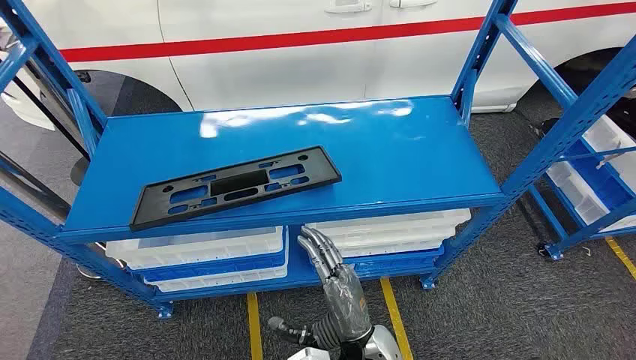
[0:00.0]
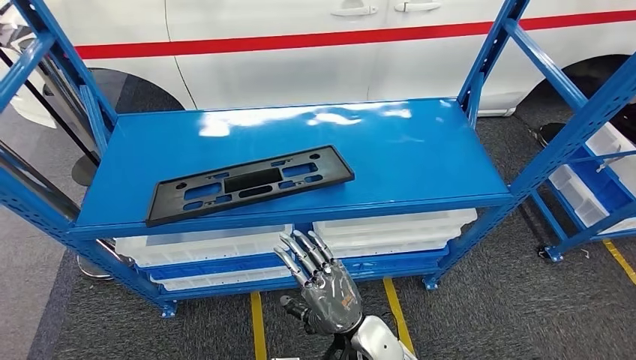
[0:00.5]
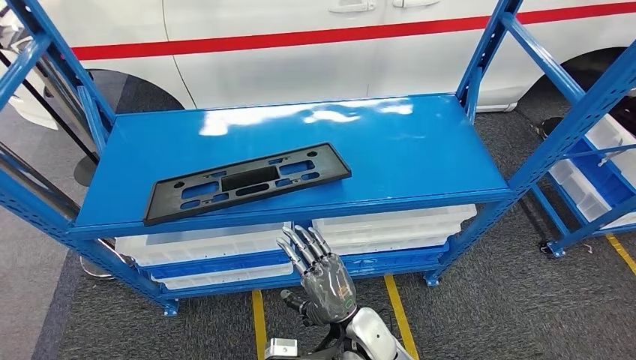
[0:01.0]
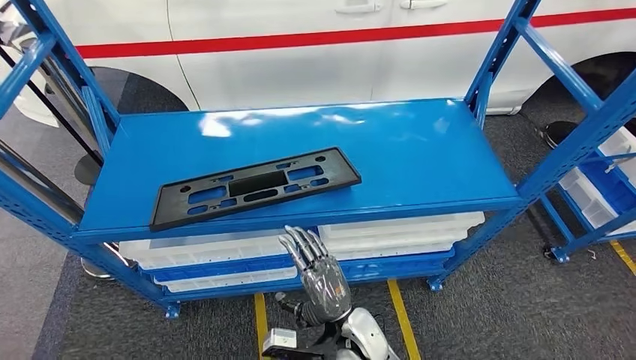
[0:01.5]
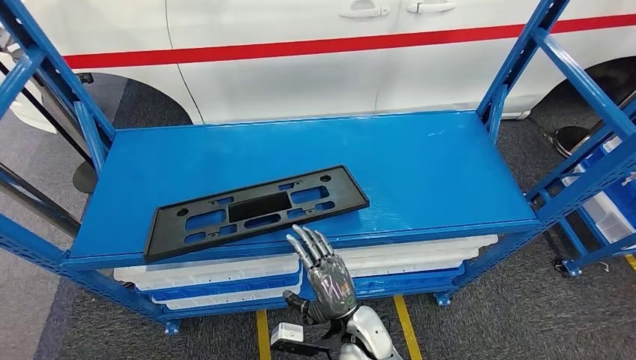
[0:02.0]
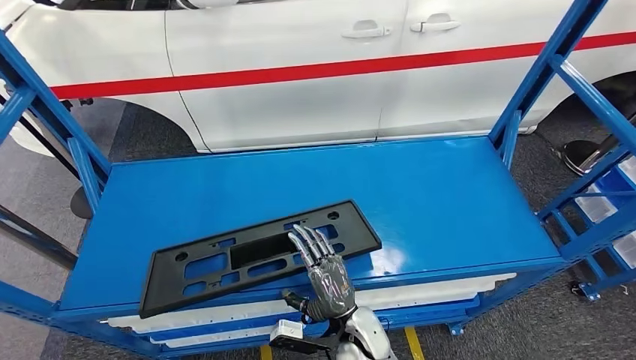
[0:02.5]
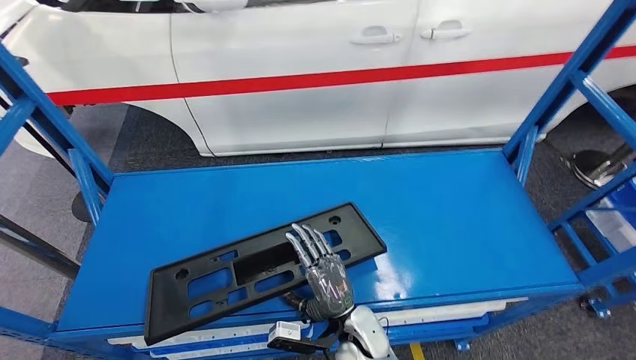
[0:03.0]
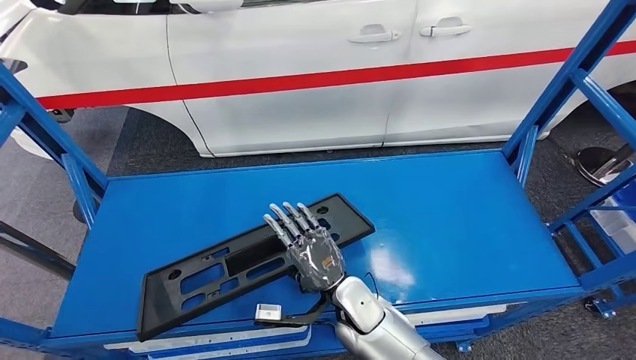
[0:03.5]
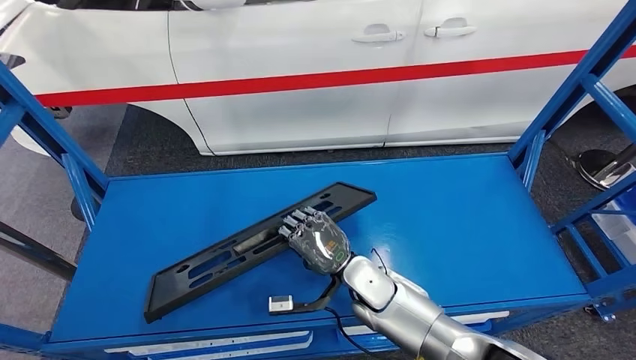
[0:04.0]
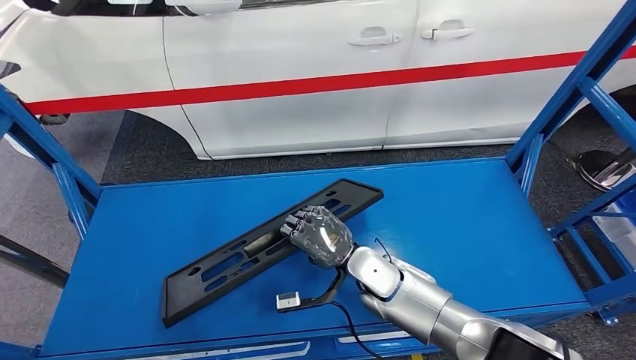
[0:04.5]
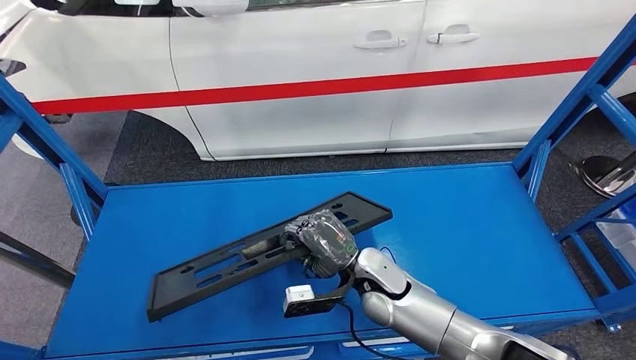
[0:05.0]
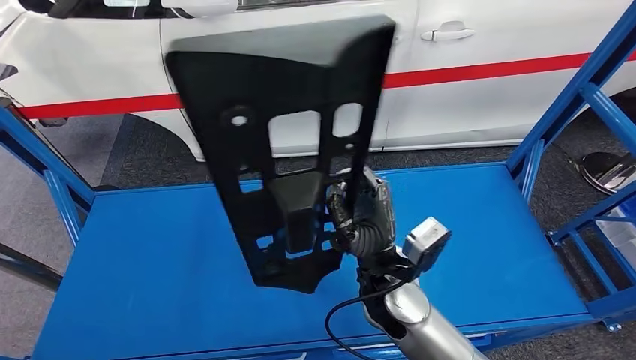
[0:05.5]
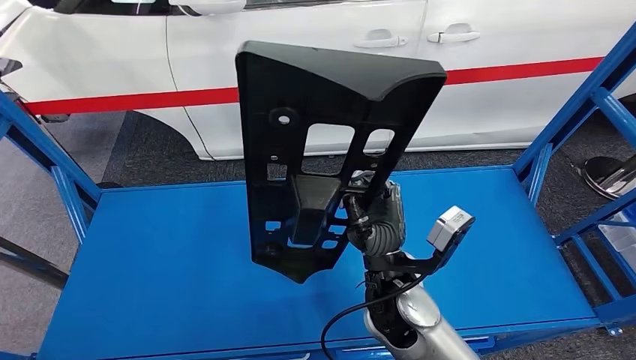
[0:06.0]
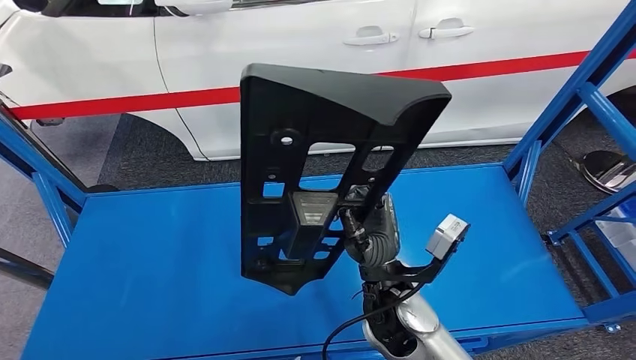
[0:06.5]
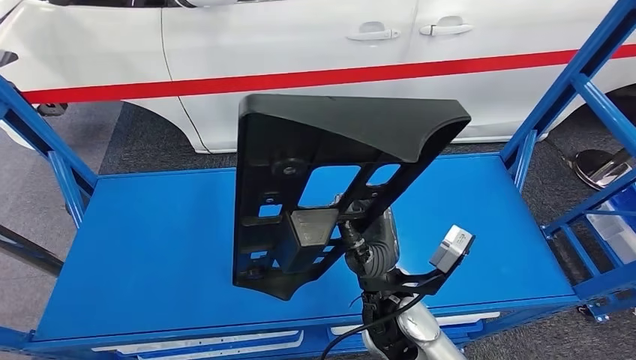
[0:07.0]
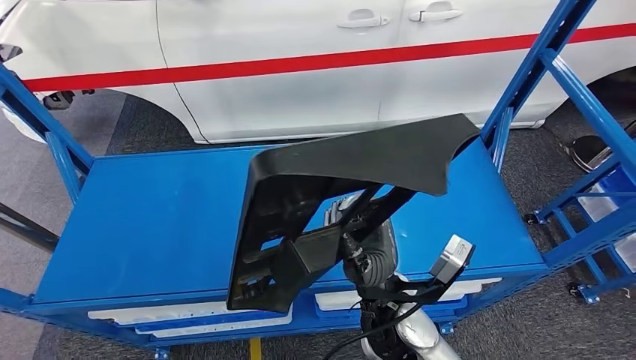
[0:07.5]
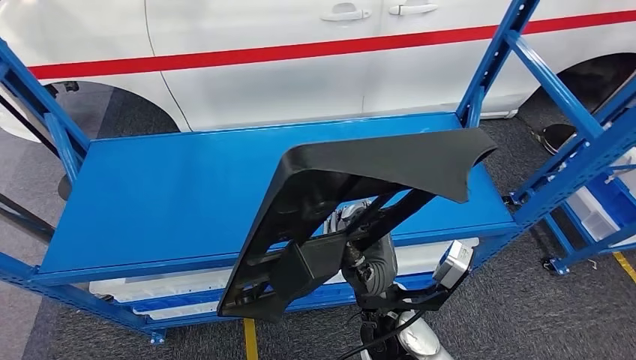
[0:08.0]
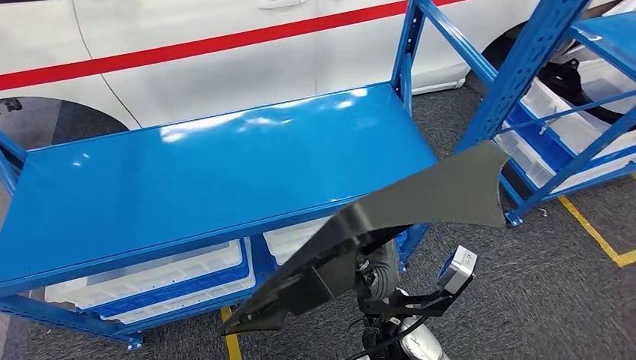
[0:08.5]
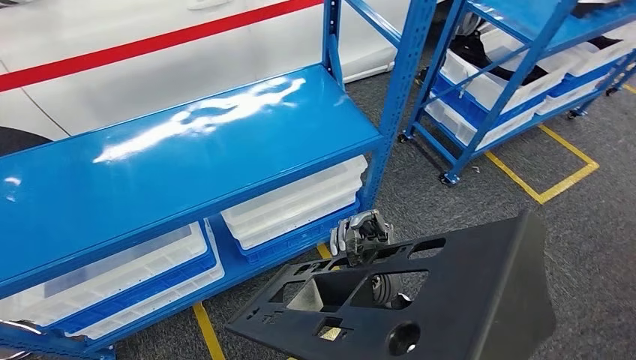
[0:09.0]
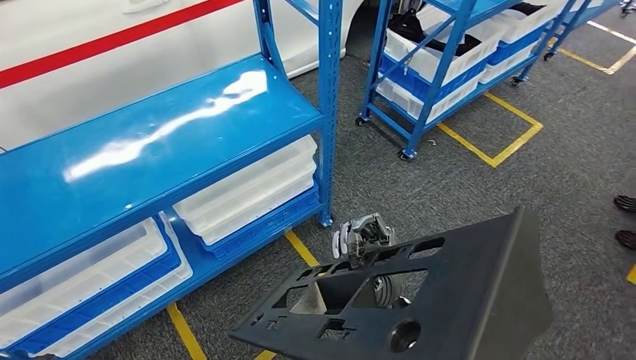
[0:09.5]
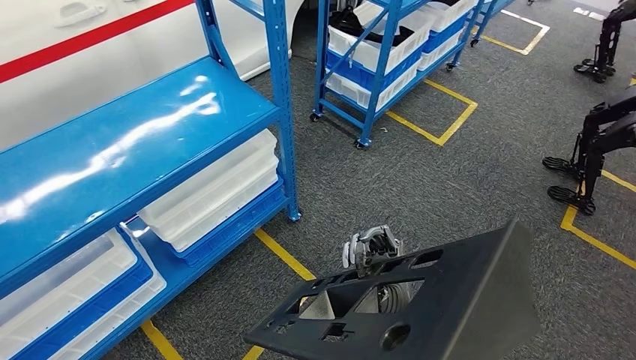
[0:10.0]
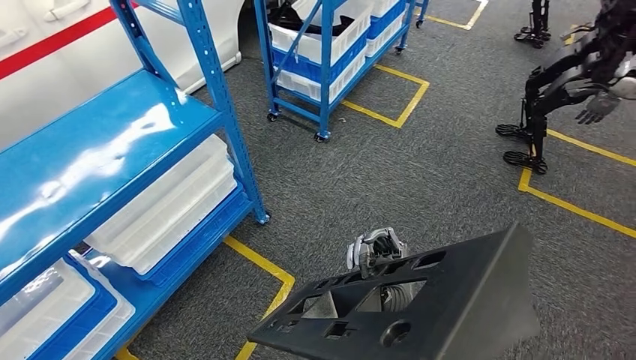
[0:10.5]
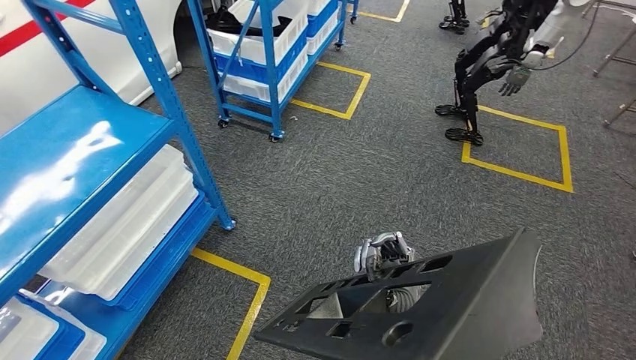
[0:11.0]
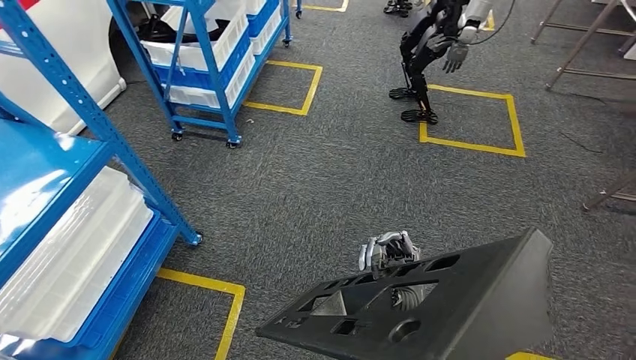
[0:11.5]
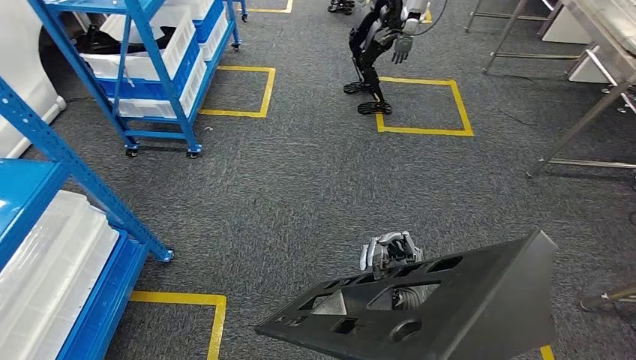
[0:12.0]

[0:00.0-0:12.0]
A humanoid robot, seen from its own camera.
Step, 0:00.0 to 0:08.0: Pick up the large material from the shelf.

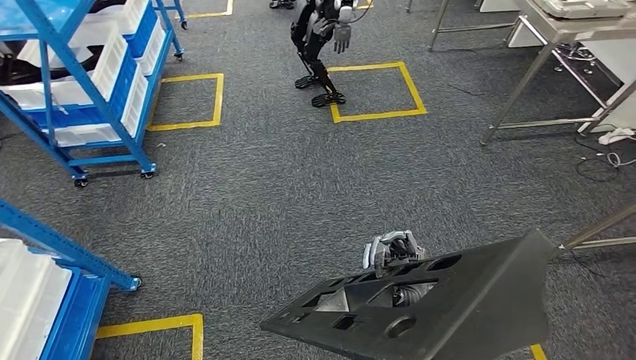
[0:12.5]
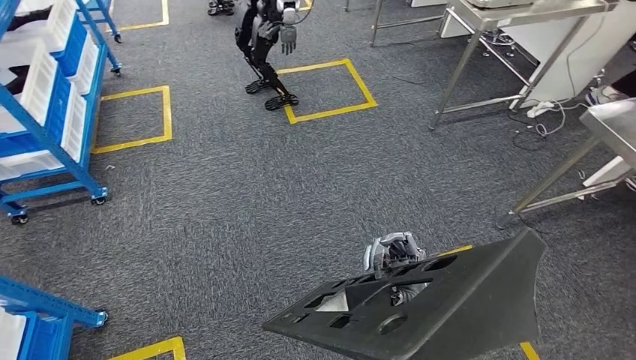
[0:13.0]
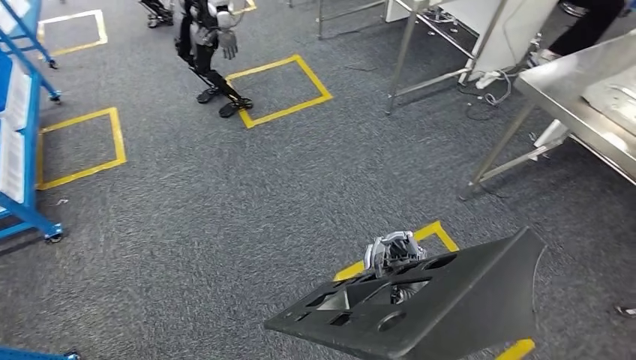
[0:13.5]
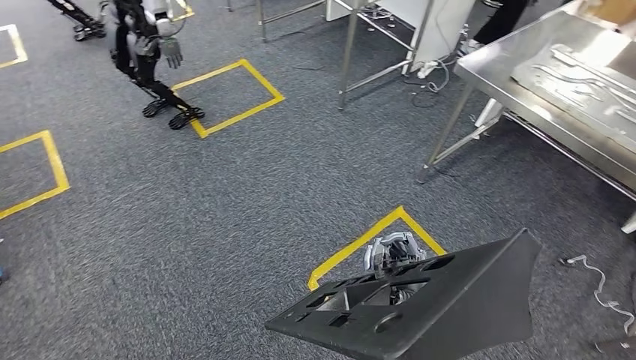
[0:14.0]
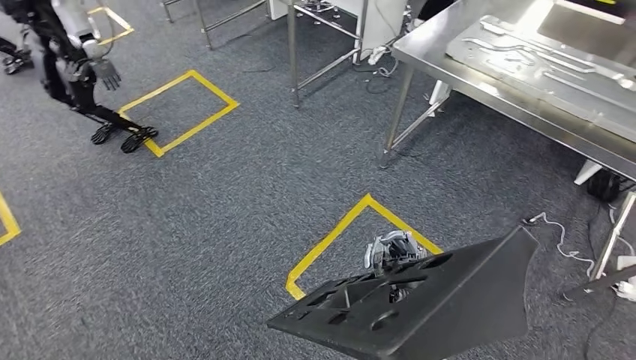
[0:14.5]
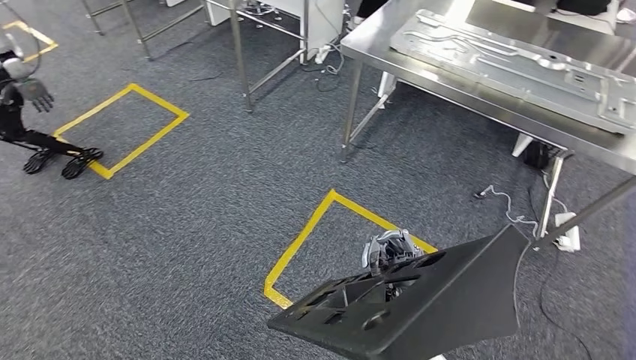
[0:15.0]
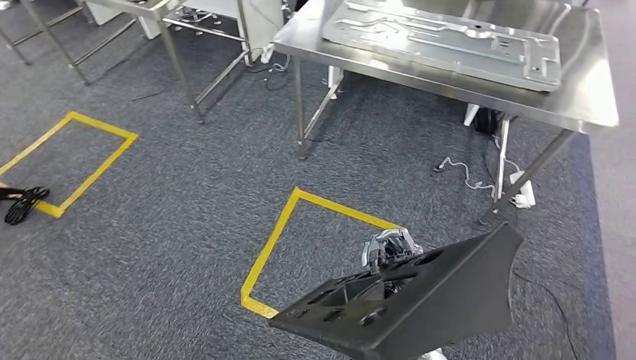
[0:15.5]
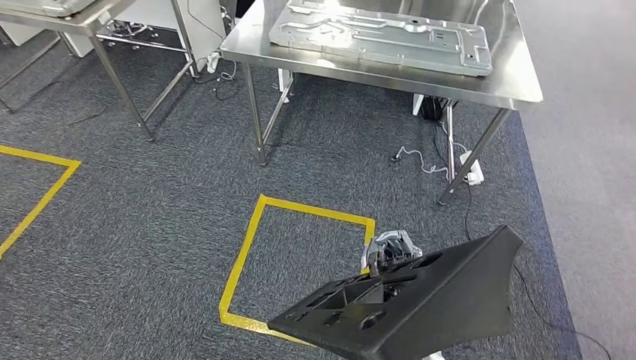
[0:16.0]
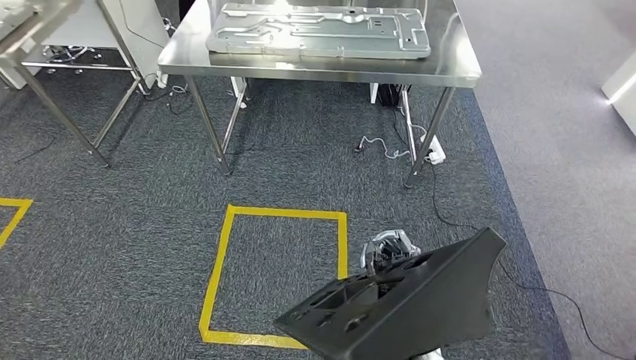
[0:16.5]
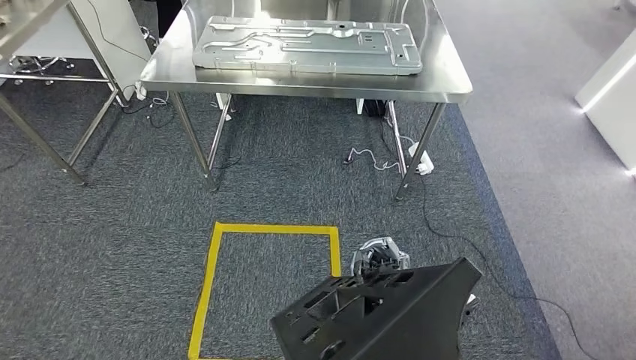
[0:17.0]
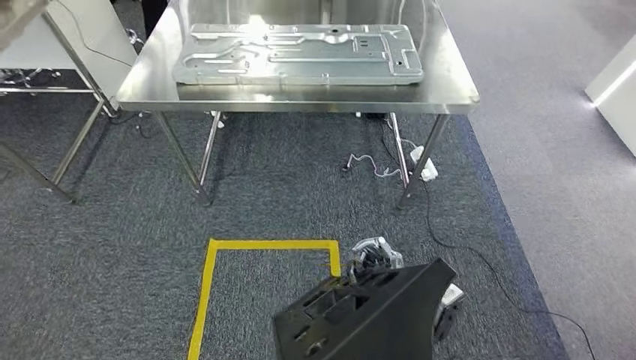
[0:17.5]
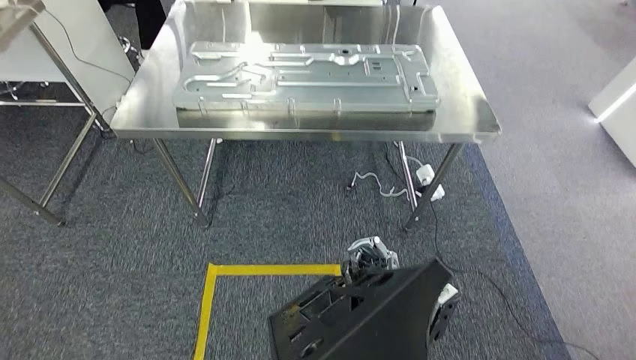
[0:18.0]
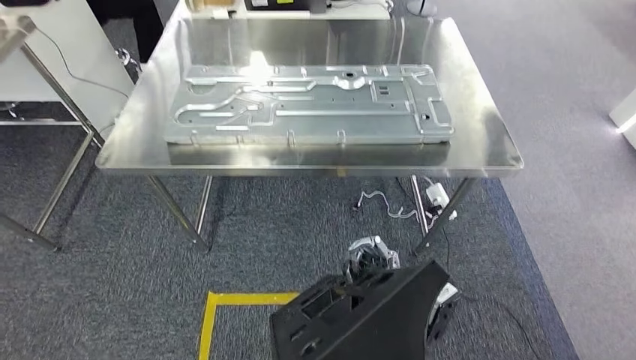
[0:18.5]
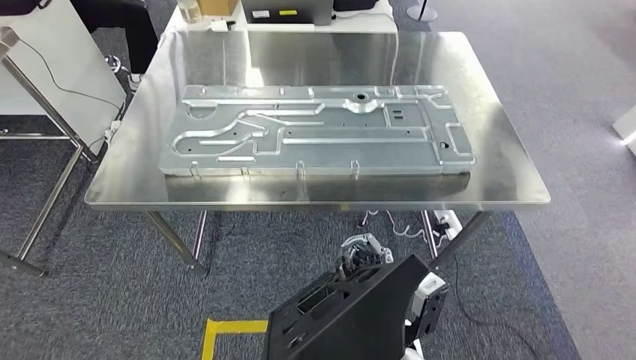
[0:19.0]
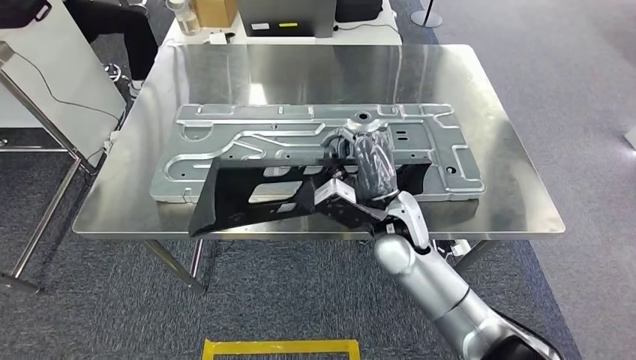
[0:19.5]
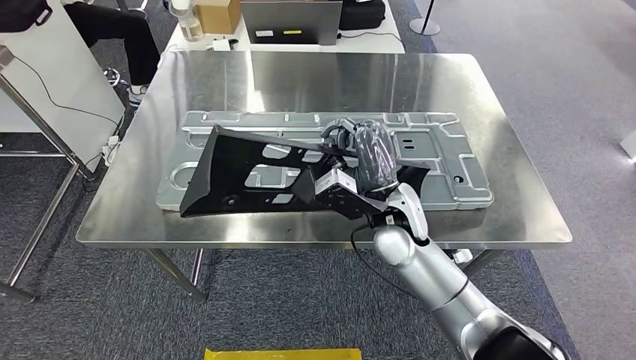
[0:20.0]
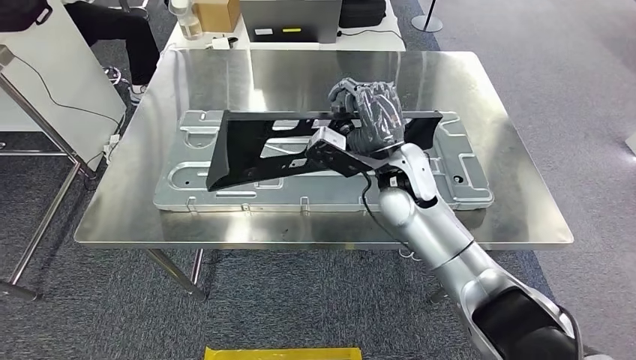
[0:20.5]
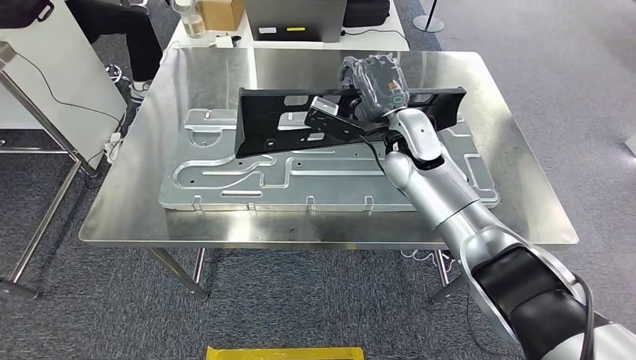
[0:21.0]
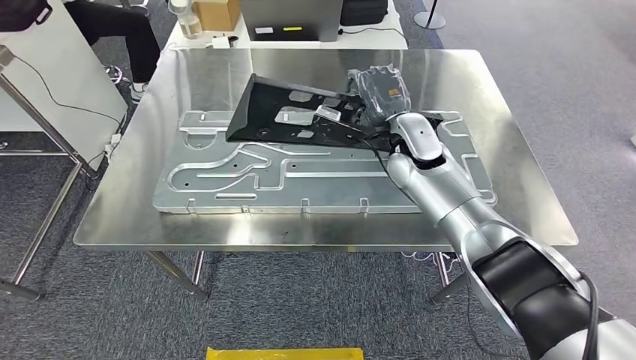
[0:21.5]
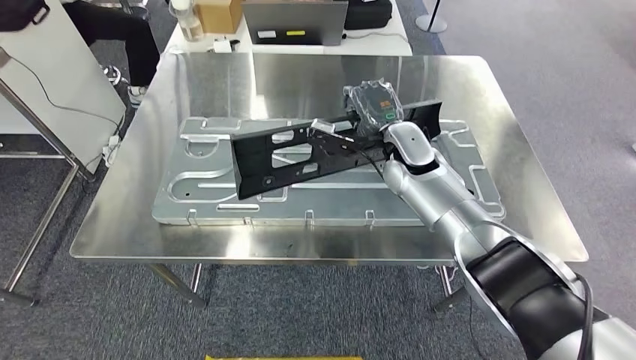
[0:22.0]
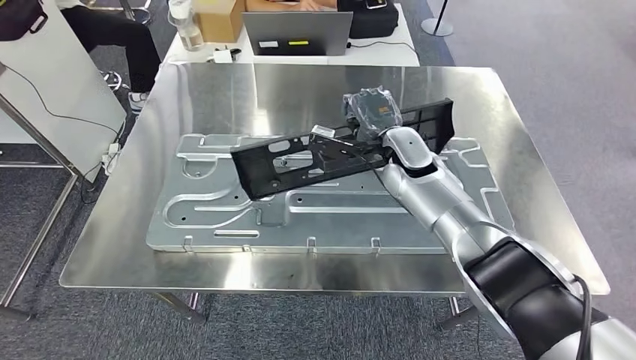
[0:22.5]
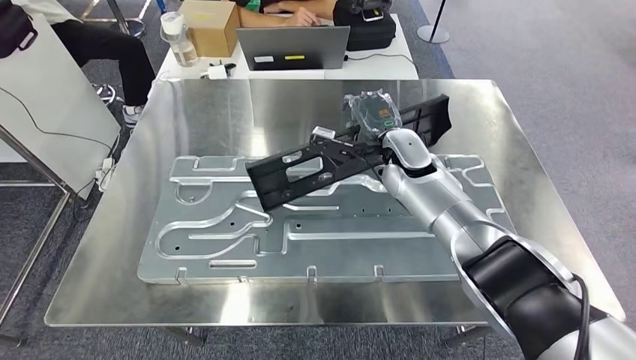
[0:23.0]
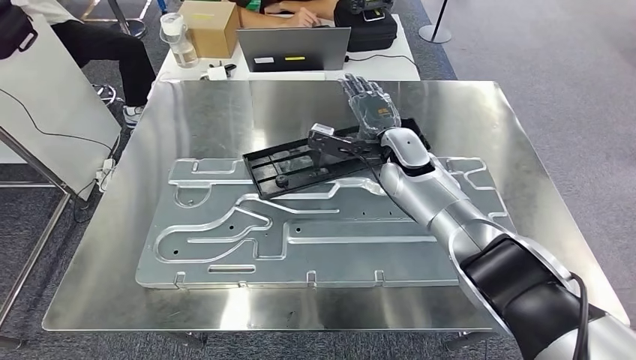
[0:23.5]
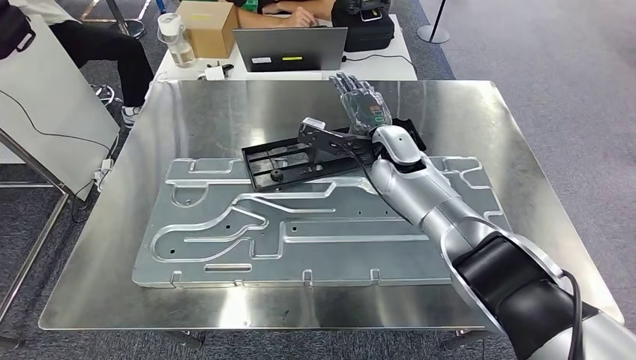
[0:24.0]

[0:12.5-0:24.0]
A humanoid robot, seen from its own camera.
Step, 0:12.5 to 0:18.5: Move the large material to the workbench.
